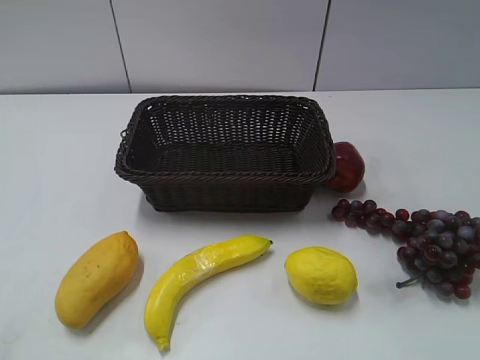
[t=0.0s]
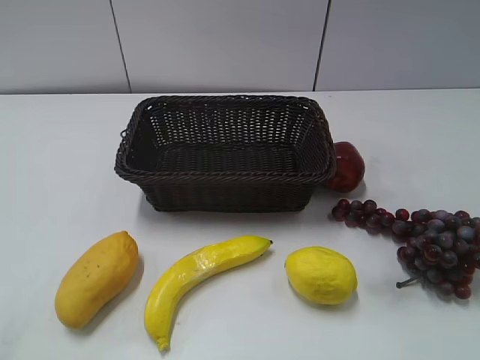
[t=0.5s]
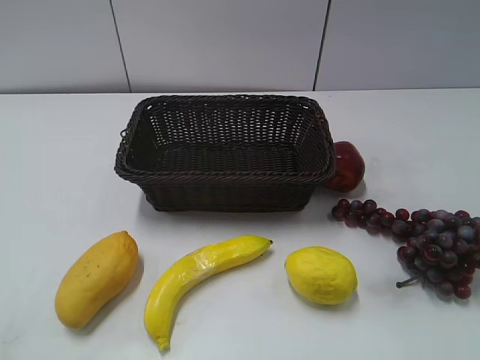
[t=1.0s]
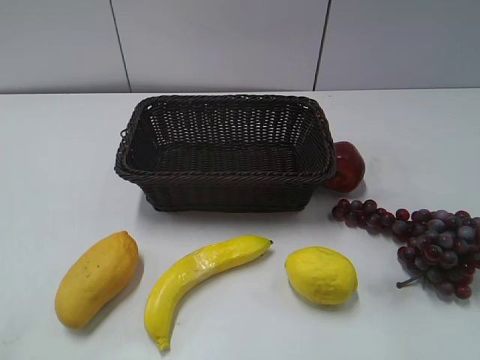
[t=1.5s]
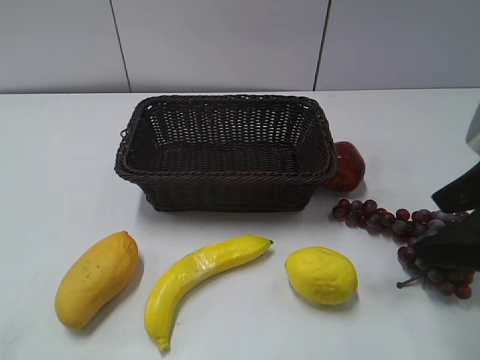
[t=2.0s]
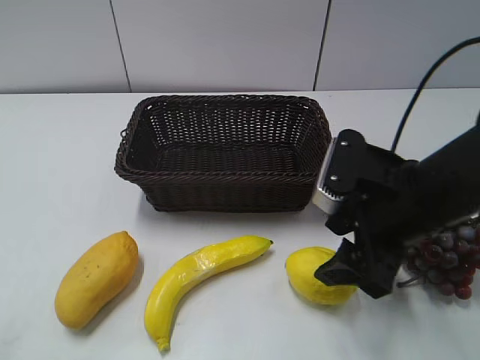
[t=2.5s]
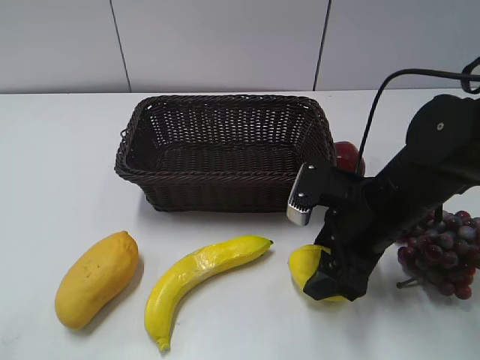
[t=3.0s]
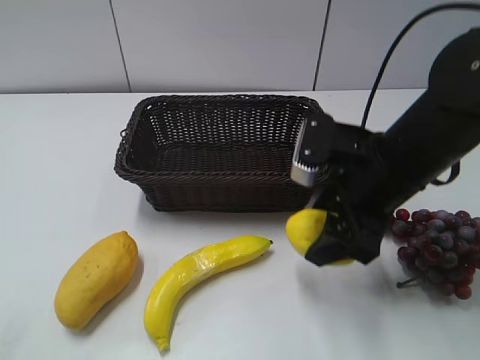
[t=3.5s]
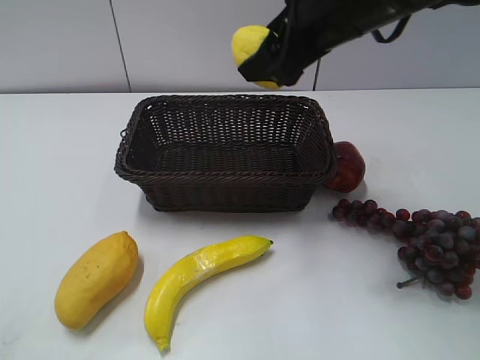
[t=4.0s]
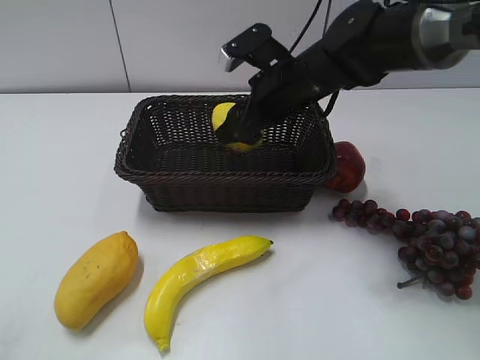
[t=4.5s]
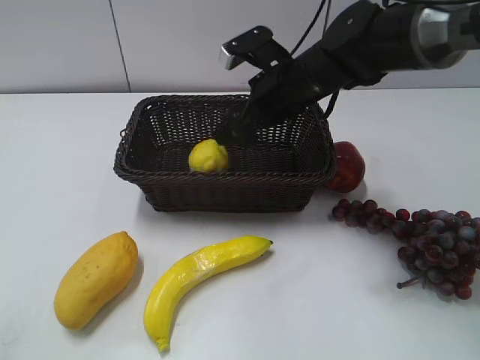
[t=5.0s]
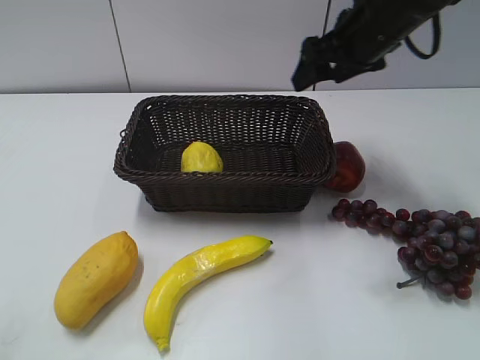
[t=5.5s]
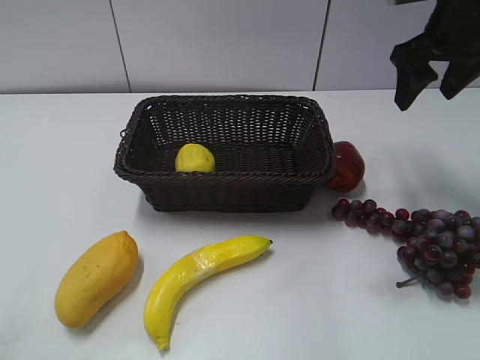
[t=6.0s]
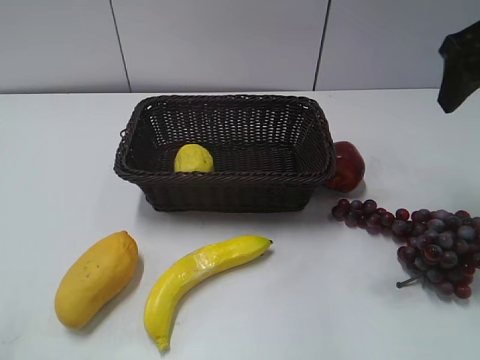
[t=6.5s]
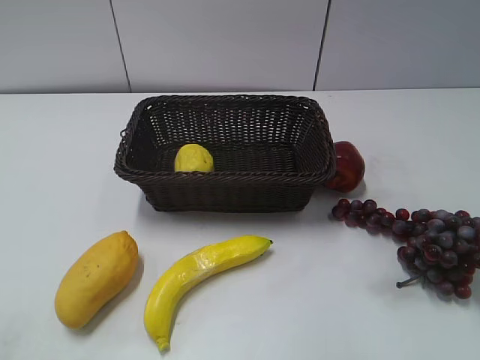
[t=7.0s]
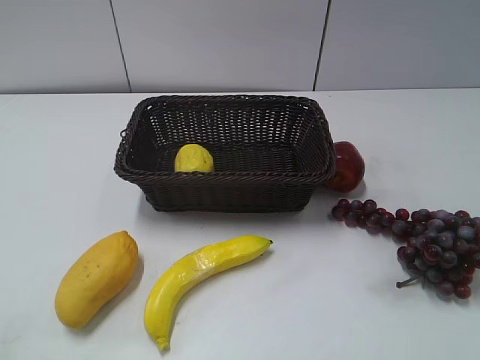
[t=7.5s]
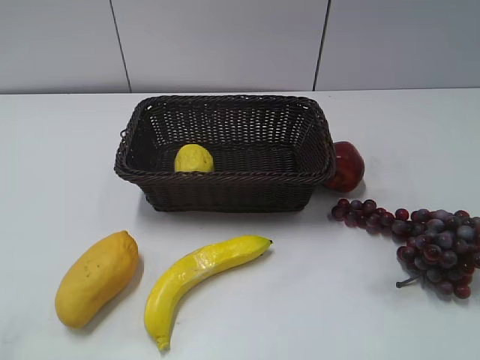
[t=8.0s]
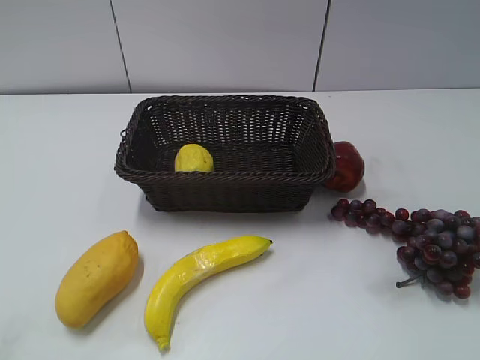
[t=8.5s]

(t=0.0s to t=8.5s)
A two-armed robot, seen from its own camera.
Step, t=2.0s - t=3.0s: Grasp the lemon with right gripper.
Step, t=3.5s - t=5.0s: Place the lemon in the basket with right gripper.
t=2.0s - t=4.0s: The right gripper shifts some 20 cm forward and to the left.
t=4.0s - t=6.5s: The right gripper is displaced to the right by about 15 cm.
t=6.5s - t=8.5s: The right gripper goes some 30 cm backward.
